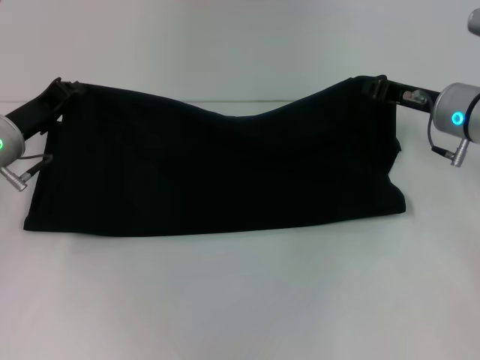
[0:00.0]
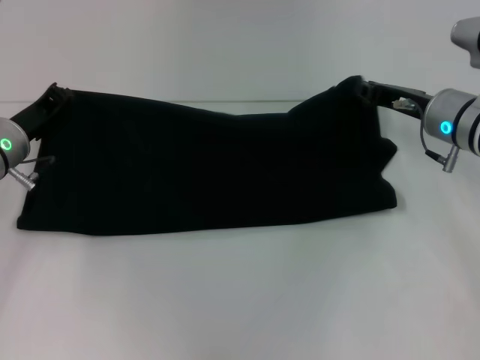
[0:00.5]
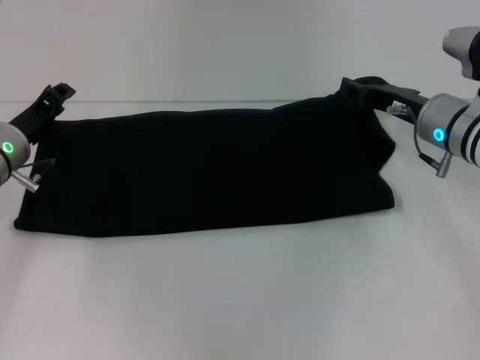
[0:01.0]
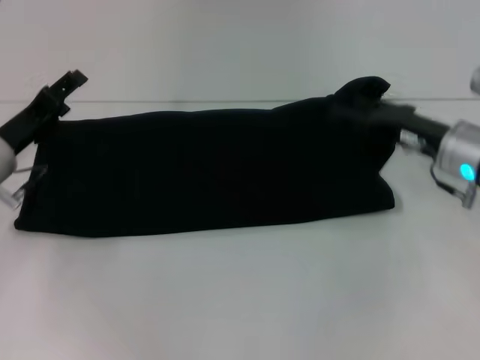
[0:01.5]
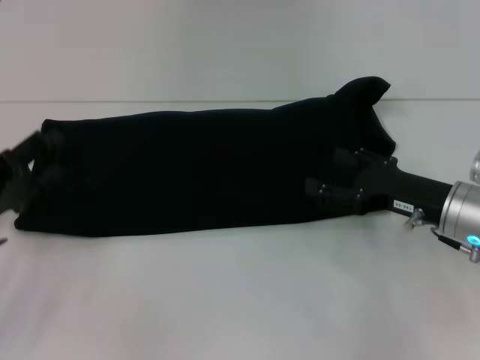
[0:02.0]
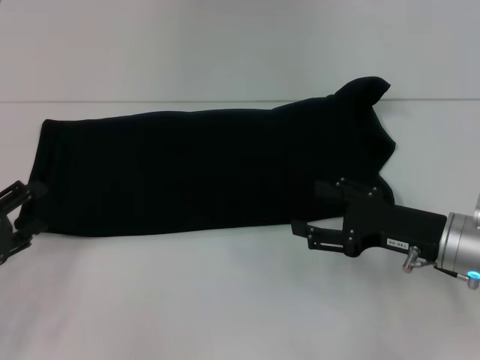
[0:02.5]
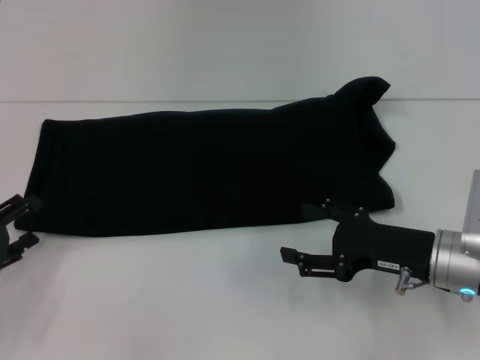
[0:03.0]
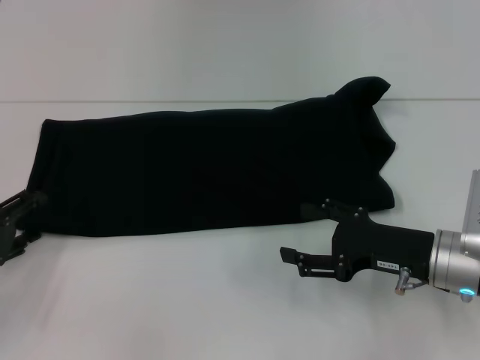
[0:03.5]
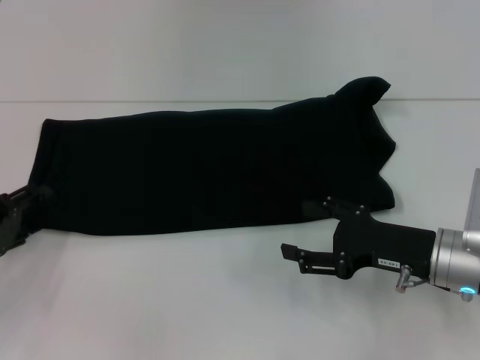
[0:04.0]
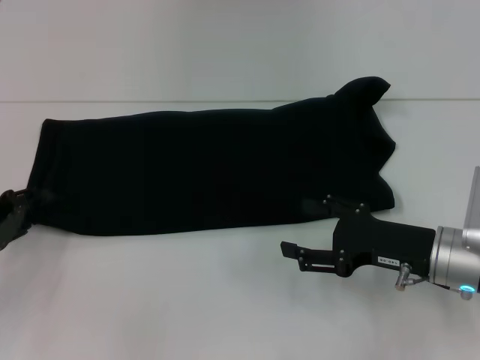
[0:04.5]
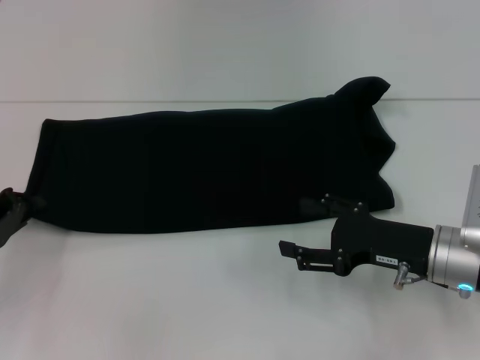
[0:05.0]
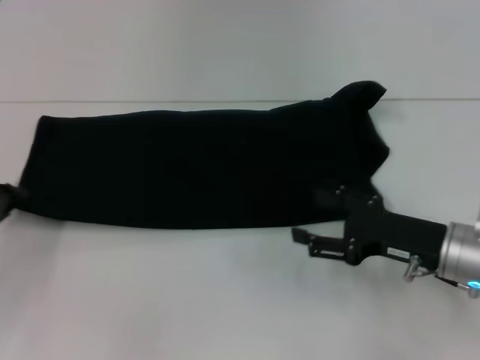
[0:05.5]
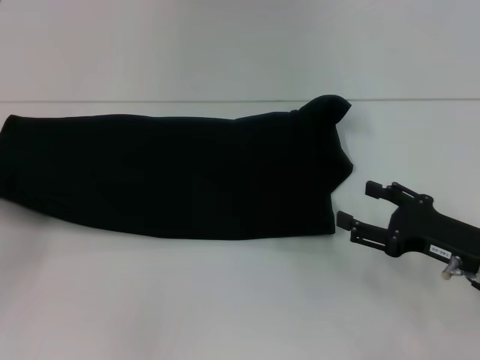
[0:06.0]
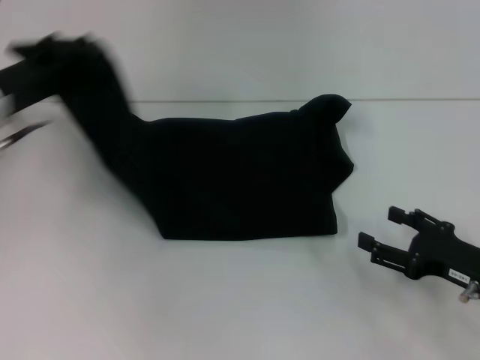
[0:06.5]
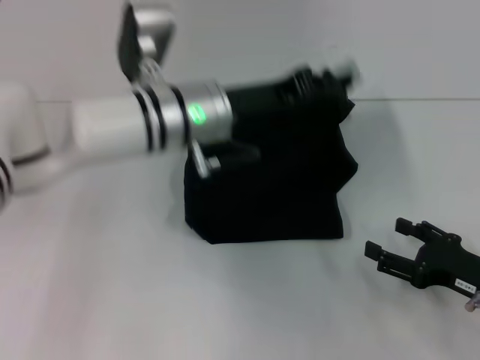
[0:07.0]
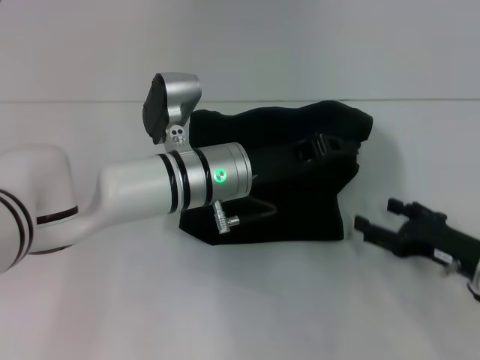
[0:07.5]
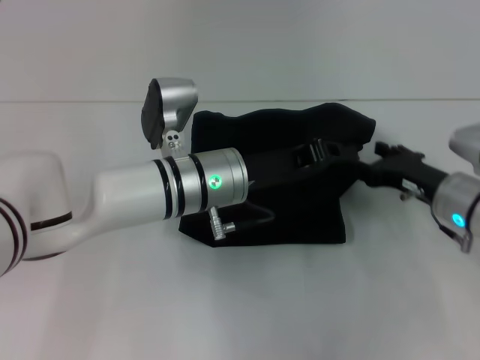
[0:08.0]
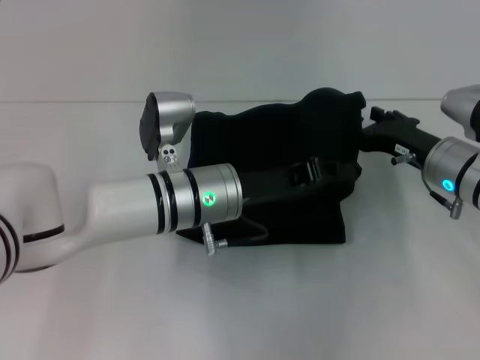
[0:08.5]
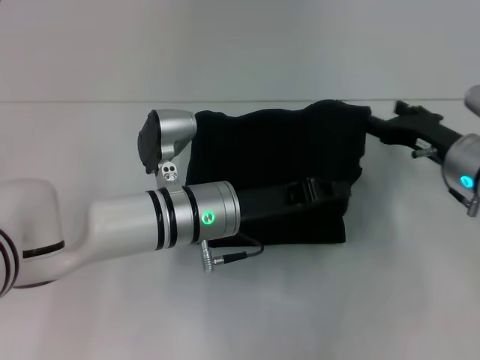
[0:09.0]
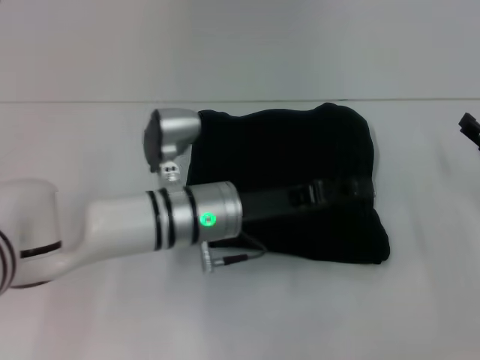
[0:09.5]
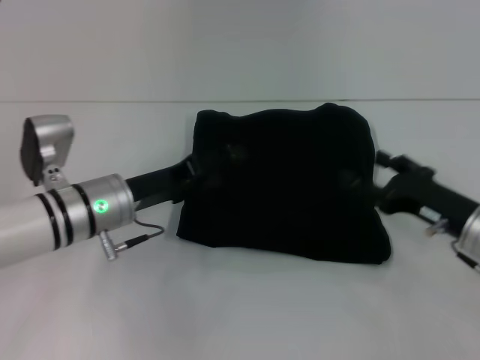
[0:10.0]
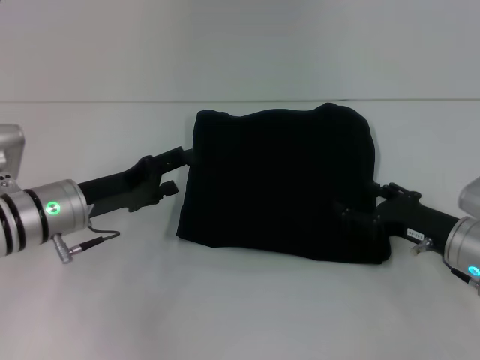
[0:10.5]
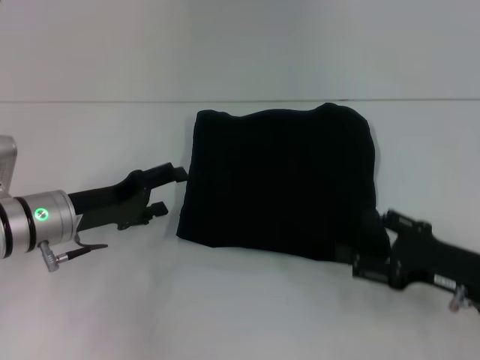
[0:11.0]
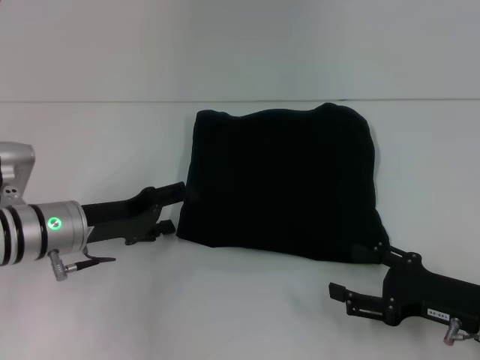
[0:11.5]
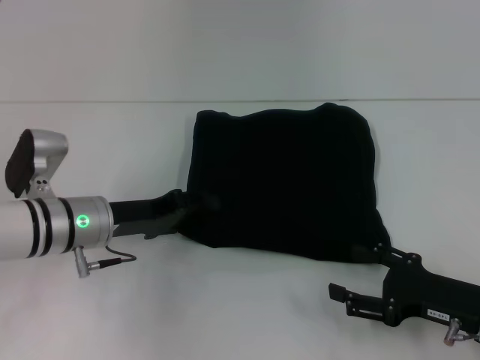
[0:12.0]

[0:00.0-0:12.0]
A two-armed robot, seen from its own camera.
Step, 0:00.0 to 0:09.5: Fold the clothes with your left hand.
0:00.0 to 0:02.0: The grippers both shift backward by approximately 10 cm. The left gripper opens. The right gripper opens up.
0:02.0 to 0:04.0: The grippers stay close to where they were, moving slightly.
0:04.0 to 0:06.0: The left gripper goes approximately 5 cm to the left, and closes its fingers. Meanwhile the right gripper changes place by about 5 cm.
0:06.0 to 0:08.0: The right gripper heads forward, covering about 5 cm. The left gripper shifts roughly 35 cm to the right.
0:08.0 to 0:10.0: The left gripper shifts roughly 10 cm to the left, and opens, while the right gripper moves roughly 10 cm to the right and comes back.
0:10.0 to 0:12.0: The right gripper is displaced backward by roughly 5 cm.

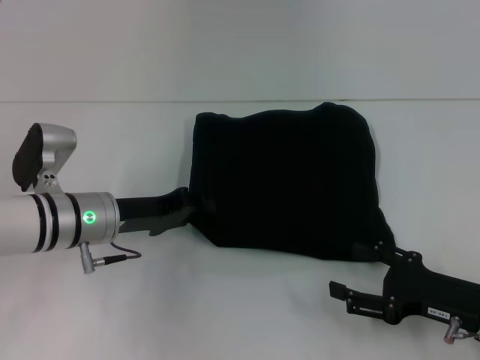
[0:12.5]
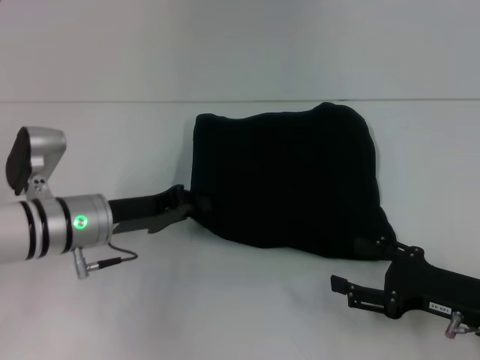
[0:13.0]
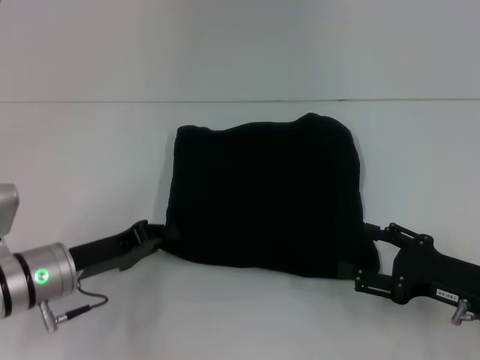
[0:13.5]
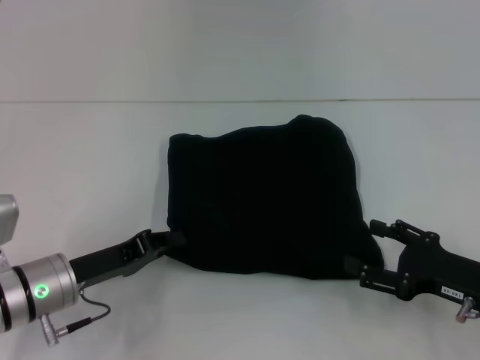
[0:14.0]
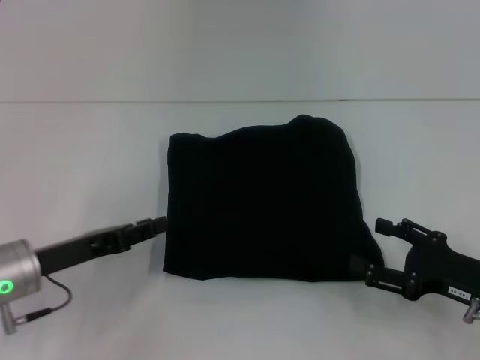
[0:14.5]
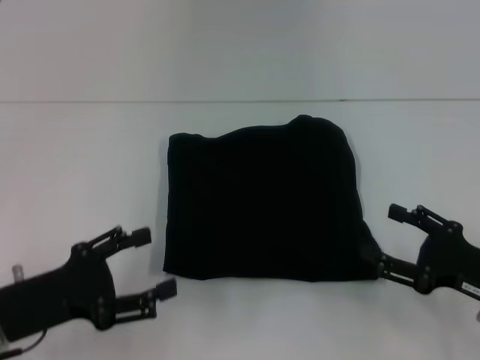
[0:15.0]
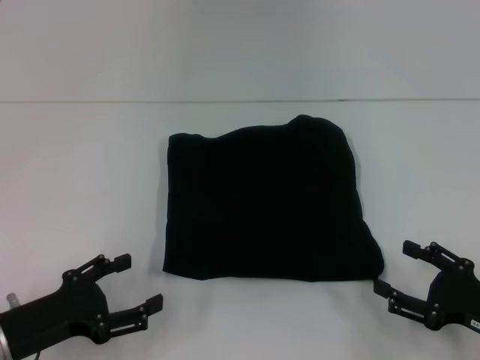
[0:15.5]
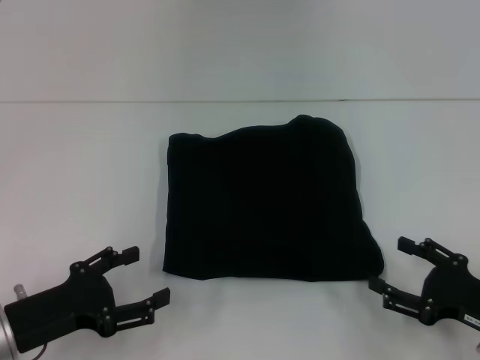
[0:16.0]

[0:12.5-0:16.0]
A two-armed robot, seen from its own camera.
0:12.5 to 0:14.5: The left gripper goes about 10 cm backward and to the left.
0:14.5 to 0:16.0: The left gripper shifts roughly 5 cm backward, and opens.
